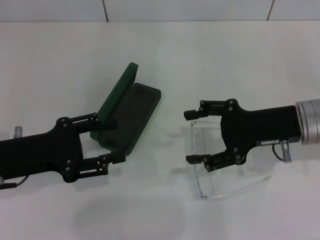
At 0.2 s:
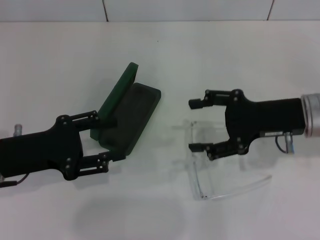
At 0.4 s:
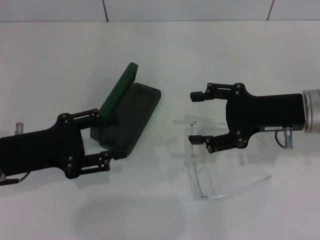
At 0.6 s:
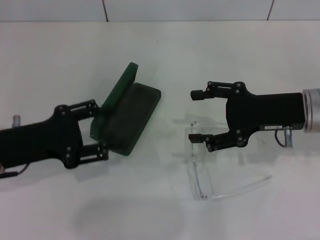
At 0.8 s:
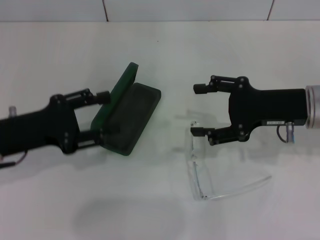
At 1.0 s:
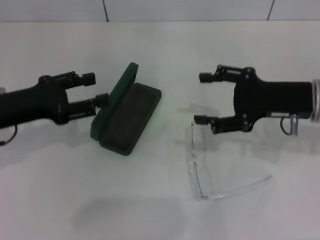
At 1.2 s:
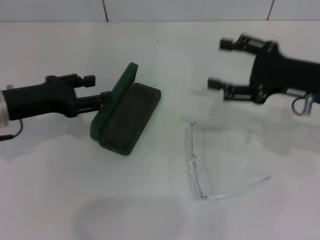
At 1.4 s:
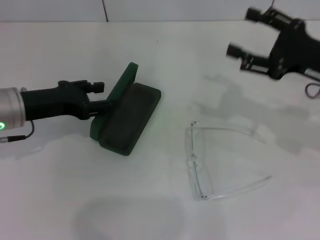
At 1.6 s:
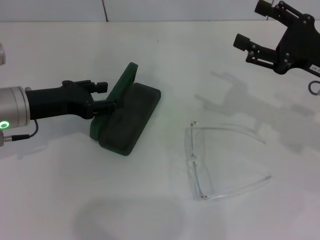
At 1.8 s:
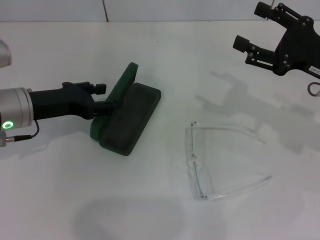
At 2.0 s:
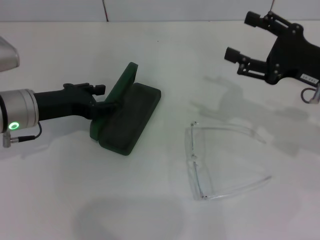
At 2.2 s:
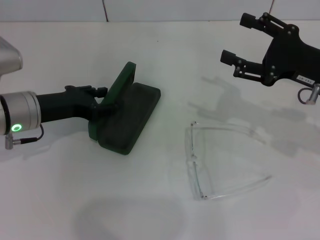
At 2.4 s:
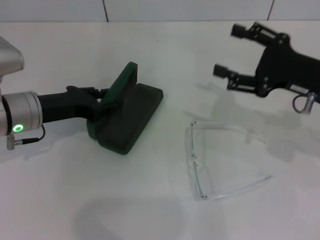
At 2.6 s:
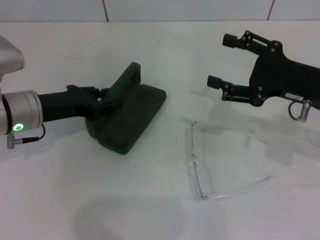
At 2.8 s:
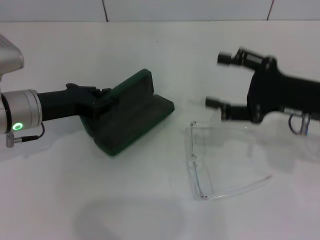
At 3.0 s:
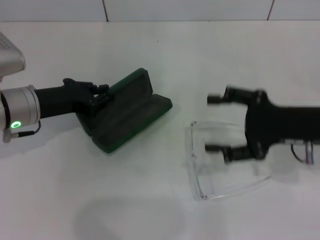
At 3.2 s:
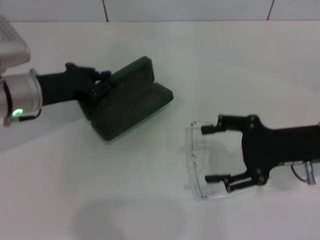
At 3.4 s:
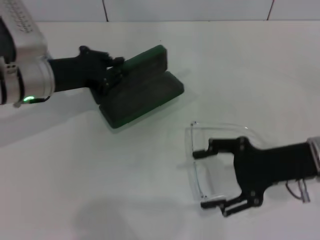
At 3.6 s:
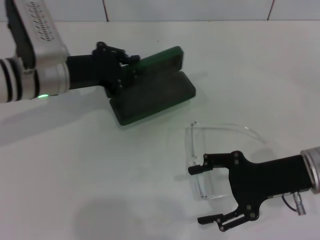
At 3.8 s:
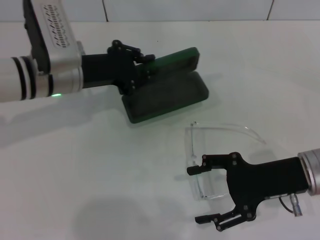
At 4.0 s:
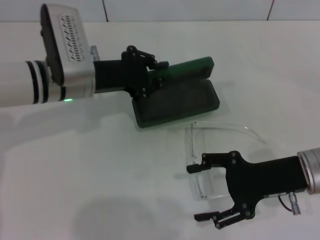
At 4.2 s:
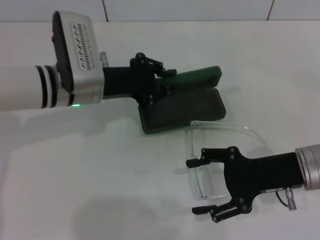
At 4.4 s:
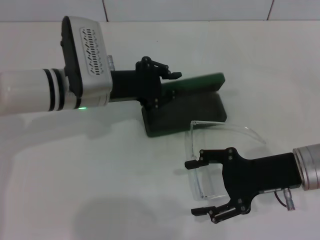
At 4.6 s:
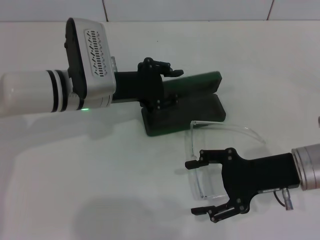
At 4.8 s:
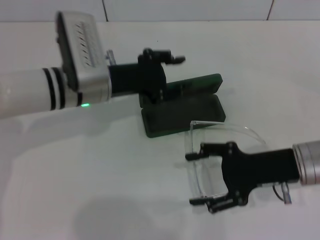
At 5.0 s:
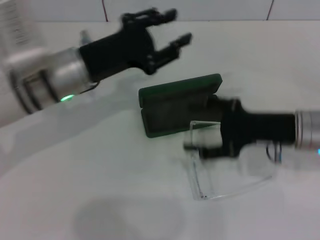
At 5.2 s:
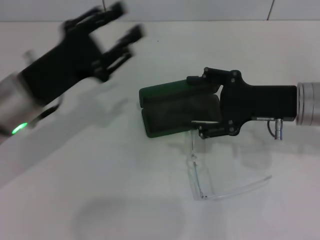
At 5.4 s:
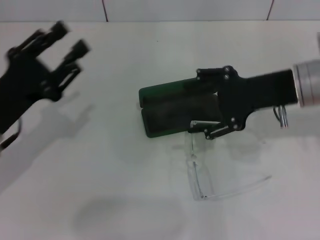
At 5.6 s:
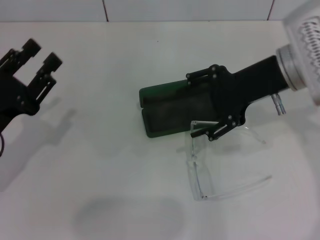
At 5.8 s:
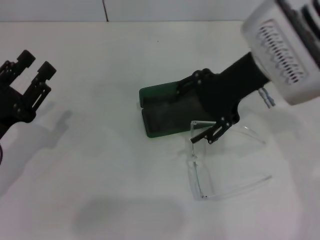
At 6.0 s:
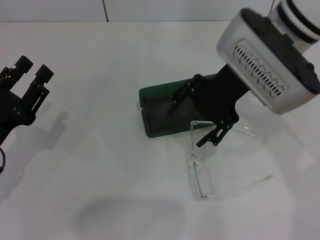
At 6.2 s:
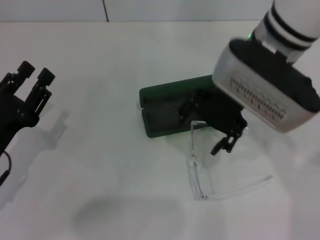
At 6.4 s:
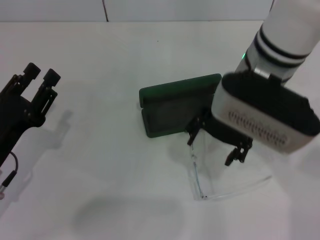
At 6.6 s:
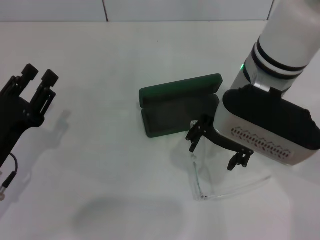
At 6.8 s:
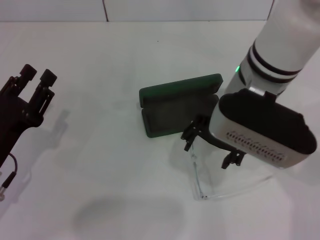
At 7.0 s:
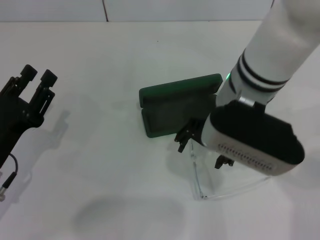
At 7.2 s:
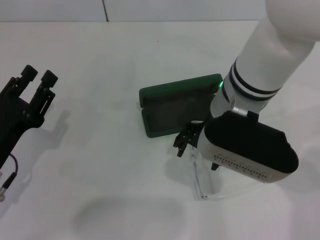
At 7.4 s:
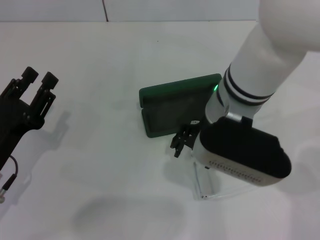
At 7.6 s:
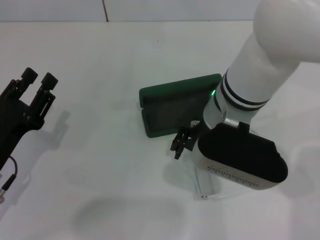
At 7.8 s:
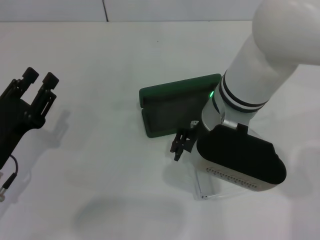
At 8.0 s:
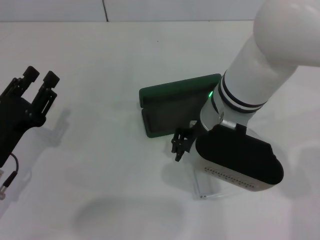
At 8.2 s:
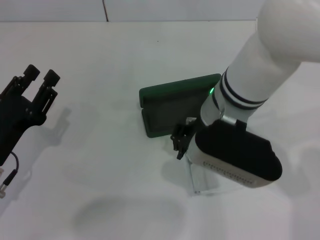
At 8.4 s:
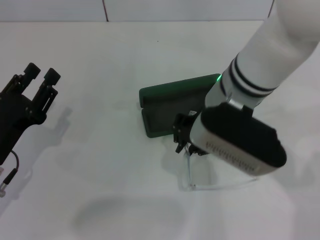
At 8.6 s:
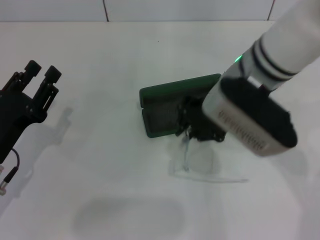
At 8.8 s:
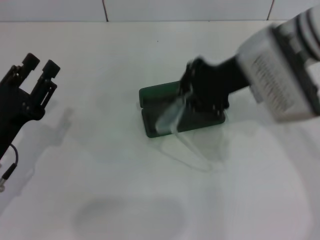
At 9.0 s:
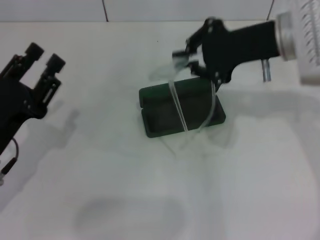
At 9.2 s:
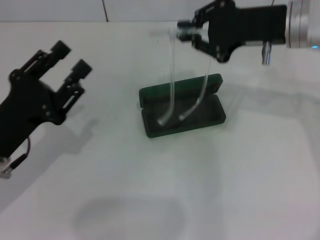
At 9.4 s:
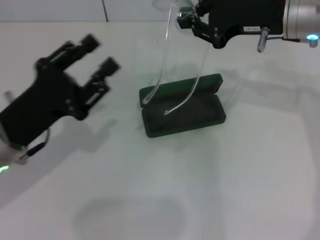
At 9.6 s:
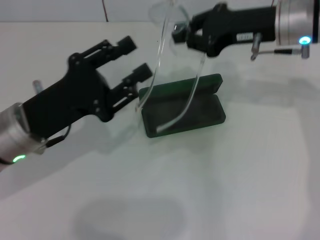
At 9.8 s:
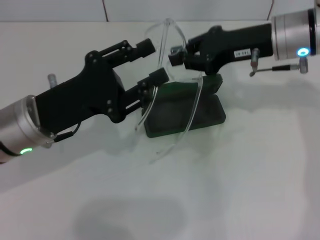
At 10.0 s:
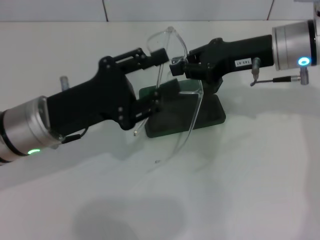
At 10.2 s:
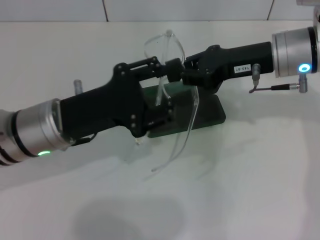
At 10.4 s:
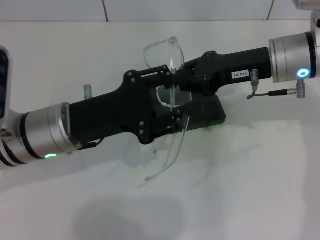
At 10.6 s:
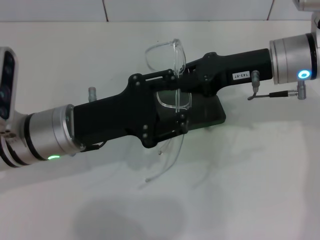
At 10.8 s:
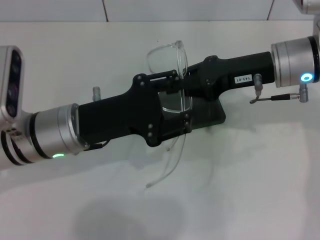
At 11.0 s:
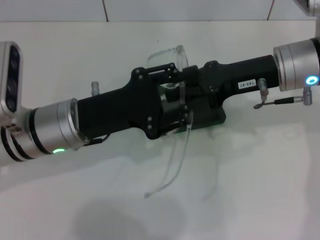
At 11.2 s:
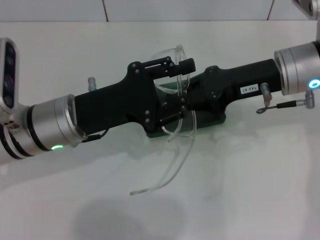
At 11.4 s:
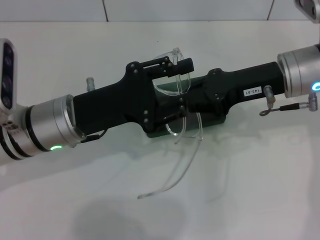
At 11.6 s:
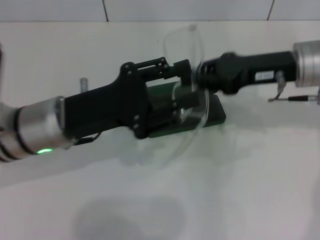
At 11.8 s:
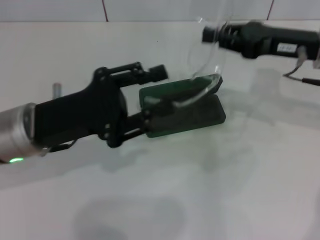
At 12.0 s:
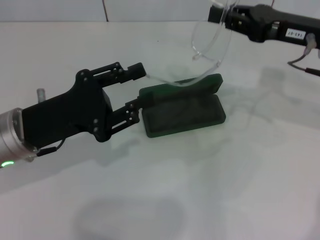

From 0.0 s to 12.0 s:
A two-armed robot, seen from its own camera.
Step, from 0.0 s to 2.8 s: Grab the glasses case with your left hand.
Step, from 3.0 s to 4.8 s: Place the glasses case in the center of the table with your left hand.
Step, from 5.0 s to 8.0 s: Grab the eyeglass frame with your right hand.
From 0.0 s to 1.6 s: The left gripper shifts roughly 10 cm forward; the right gripper shifts approximately 5 cm to the right.
From 1.6 s to 3.0 s: The left gripper closes up.
From 3.0 s to 4.4 s: The left gripper travels to the right by some 10 cm; the right gripper moves some 5 cm.
From 4.4 s to 6.0 s: The right gripper is displaced upward, to the left and forward by approximately 20 cm; the left gripper goes some 20 cm backward and to the left, and opens its fingers.
From 6.0 s to 7.6 s: The right gripper is displaced downward by some 5 cm.
From 7.6 s to 9.0 s: The right gripper moves to the right and upward, some 10 cm, and closes.
From 9.0 s to 10.4 s: The left gripper goes roughly 10 cm to the right and forward. The right gripper ends up some 5 cm from where it was.
From 10.4 s to 12.0 s: The left gripper ends up about 5 cm from where it was. The right gripper heads to the right, covering roughly 5 cm.

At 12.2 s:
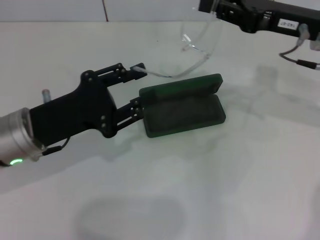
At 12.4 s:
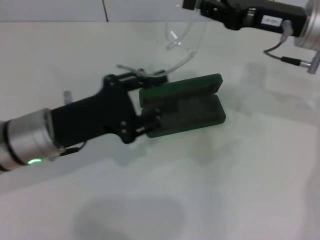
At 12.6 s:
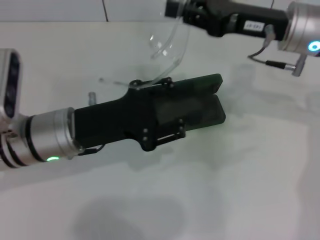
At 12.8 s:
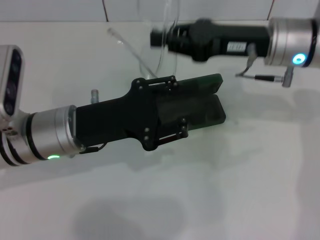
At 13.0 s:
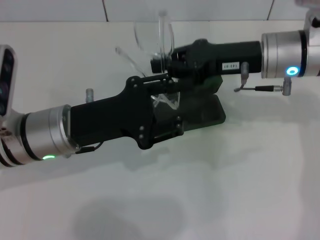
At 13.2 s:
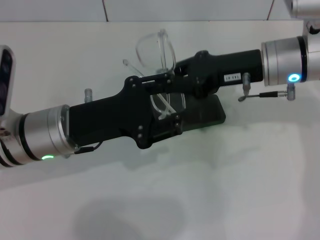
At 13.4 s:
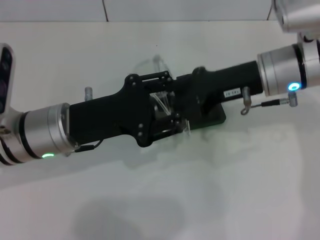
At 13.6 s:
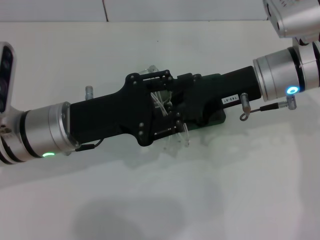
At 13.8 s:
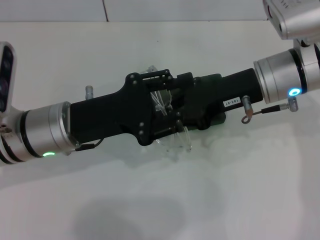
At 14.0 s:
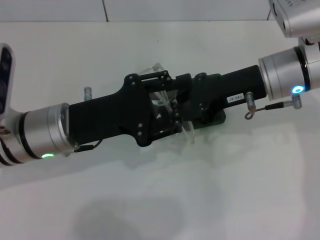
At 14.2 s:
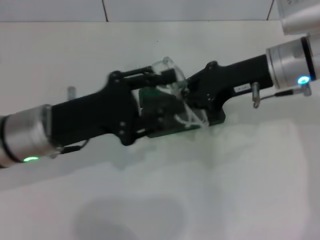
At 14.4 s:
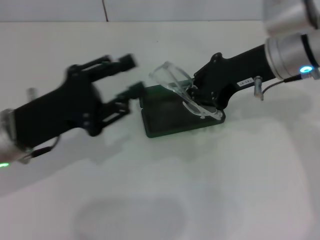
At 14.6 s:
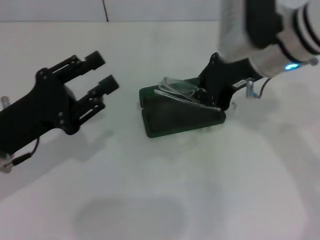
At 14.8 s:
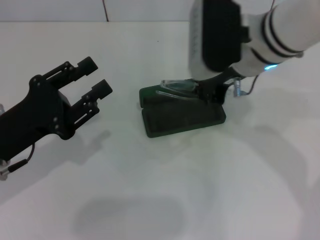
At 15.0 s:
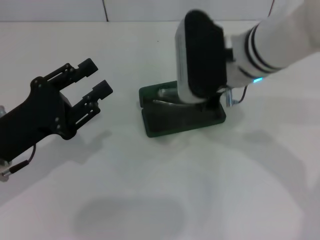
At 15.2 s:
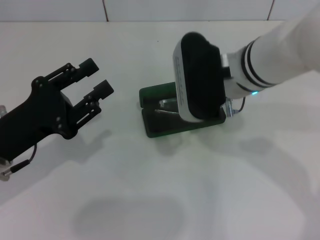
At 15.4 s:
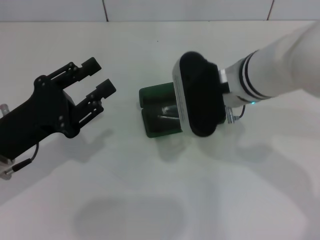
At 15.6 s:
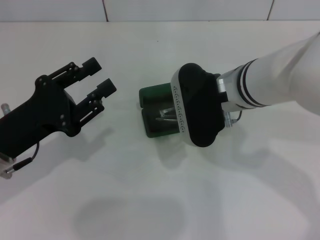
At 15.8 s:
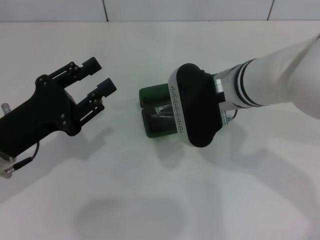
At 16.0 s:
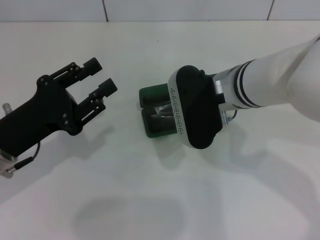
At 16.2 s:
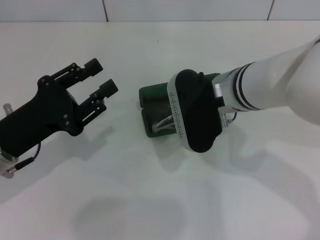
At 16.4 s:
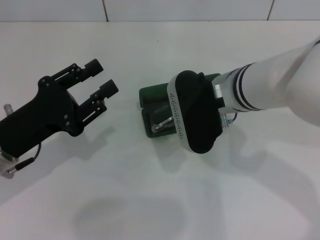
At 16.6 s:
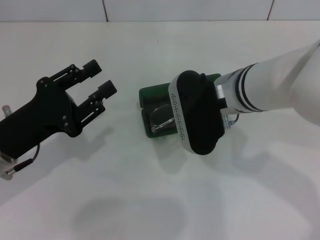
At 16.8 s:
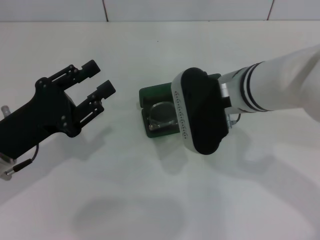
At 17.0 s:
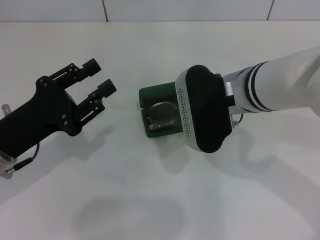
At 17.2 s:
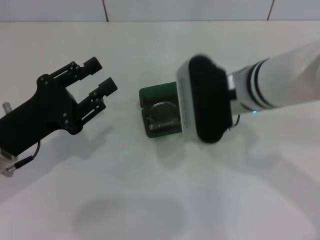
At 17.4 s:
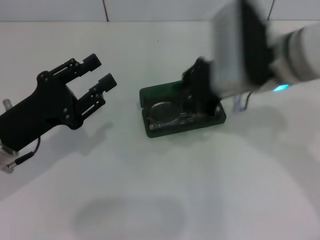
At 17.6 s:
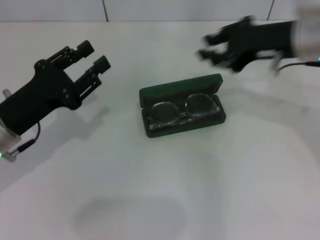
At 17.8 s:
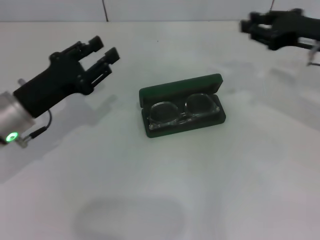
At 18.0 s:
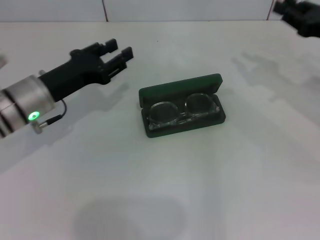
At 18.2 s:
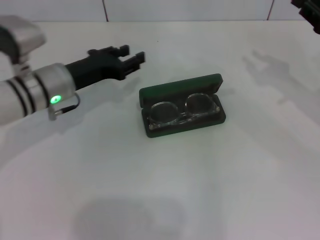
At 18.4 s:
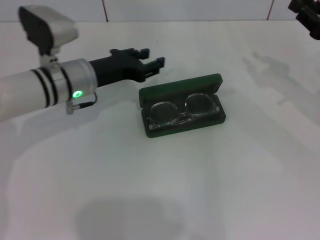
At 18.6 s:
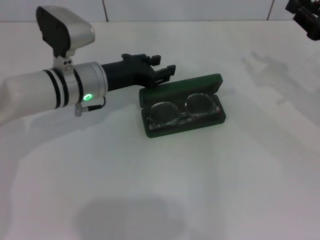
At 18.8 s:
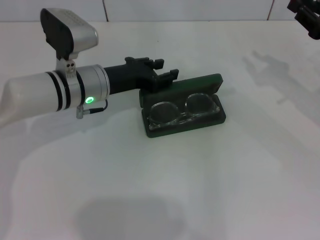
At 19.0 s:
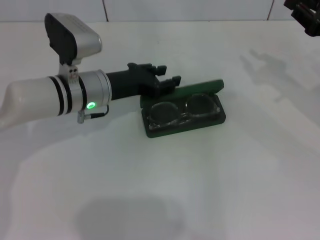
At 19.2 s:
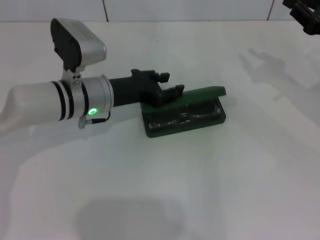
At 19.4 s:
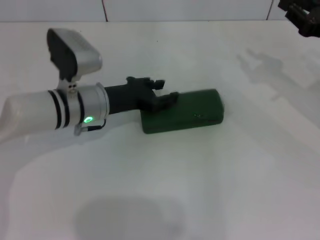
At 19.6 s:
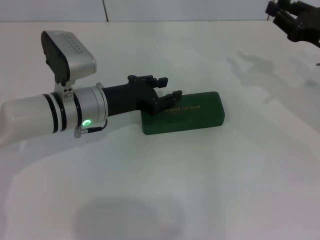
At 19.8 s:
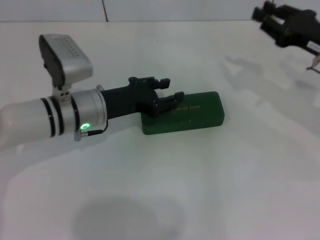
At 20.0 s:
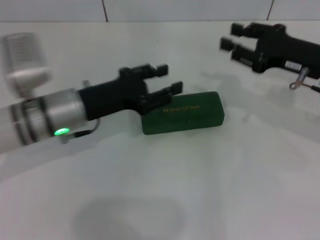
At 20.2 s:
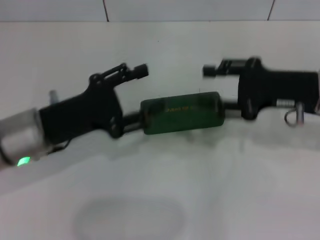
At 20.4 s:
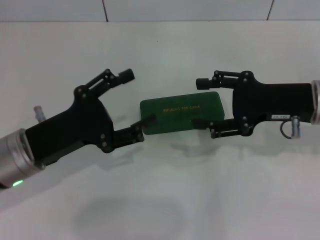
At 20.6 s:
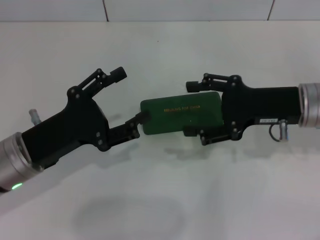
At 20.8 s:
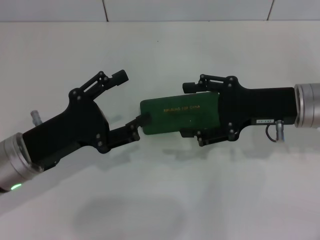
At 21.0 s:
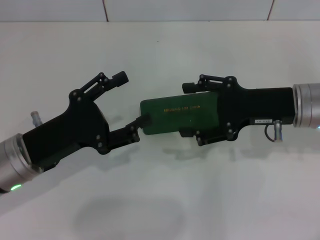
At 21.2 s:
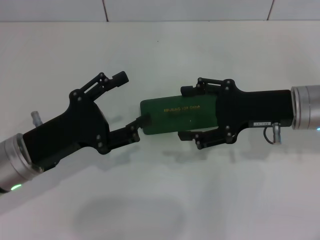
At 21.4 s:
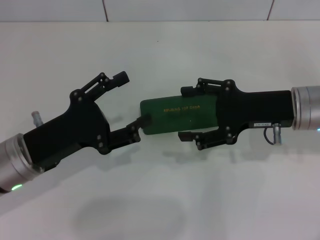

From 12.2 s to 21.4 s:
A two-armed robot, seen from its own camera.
Step, from 14.2 s to 16.6 s: Put the glasses into the case with your right hand.
Step, from 16.8 s to 19.4 s: Close the glasses case with your left hand.
From 12.2 s to 13.8 s: The right gripper moves to the left, approximately 5 cm.
From 13.8 s to 15.2 s: The grippers both shift to the left by about 10 cm.
From 15.2 s to 16.8 s: The grippers make only small movements.
From 16.8 s to 18.4 s: The right gripper is displaced to the right by roughly 25 cm. The left gripper is displaced forward and to the right by roughly 15 cm.
From 18.4 s to 19.8 s: The grippers move only a little.
From 19.8 s to 21.4 s: The right gripper heads to the left, covering some 5 cm, and opens its fingers. Meanwhile the left gripper moves backward and to the left, roughly 10 cm, and opens.
